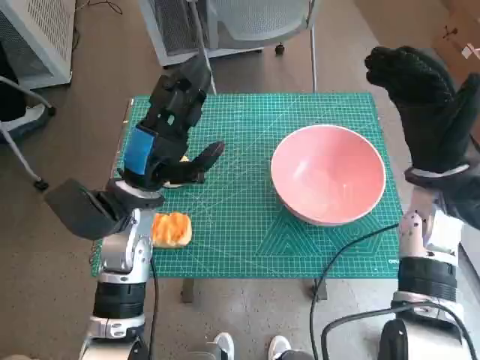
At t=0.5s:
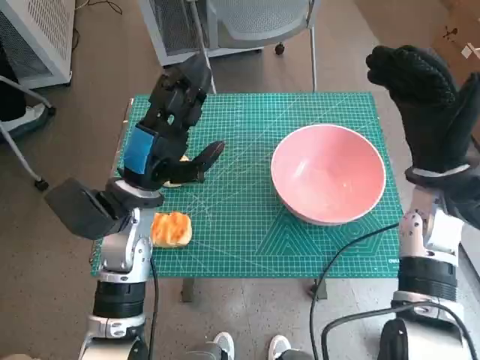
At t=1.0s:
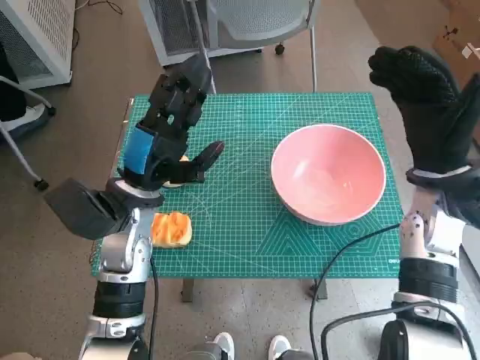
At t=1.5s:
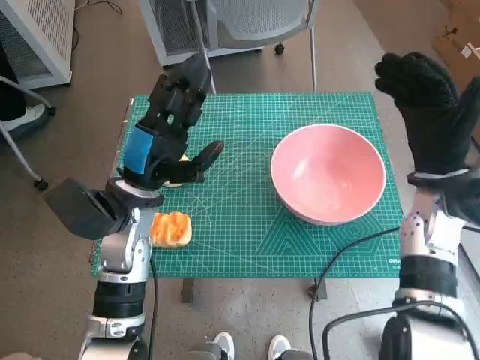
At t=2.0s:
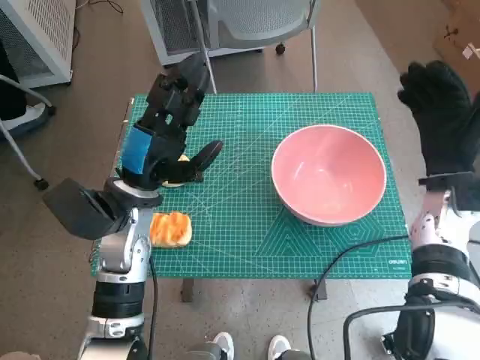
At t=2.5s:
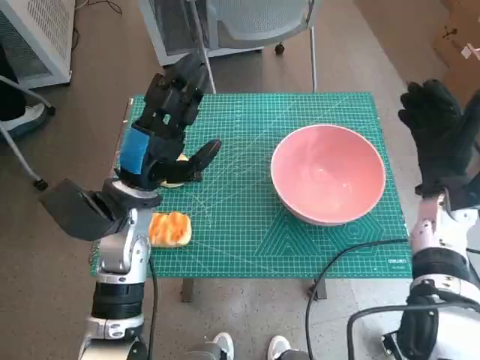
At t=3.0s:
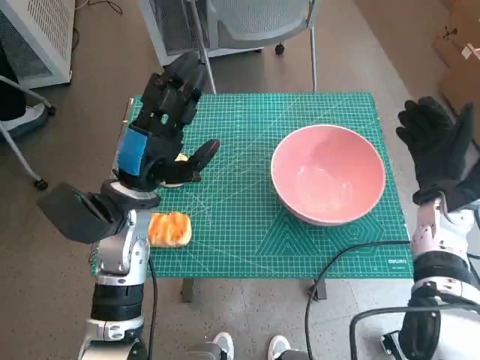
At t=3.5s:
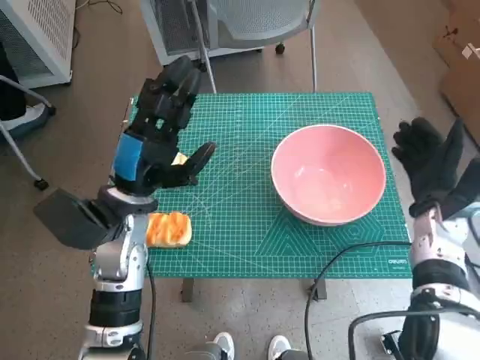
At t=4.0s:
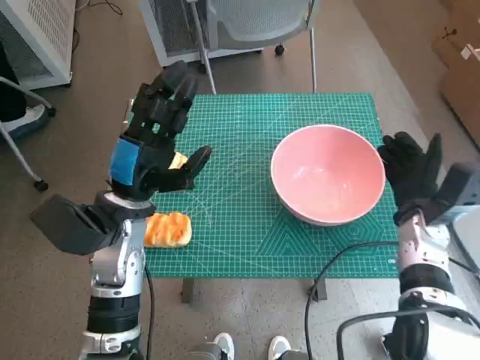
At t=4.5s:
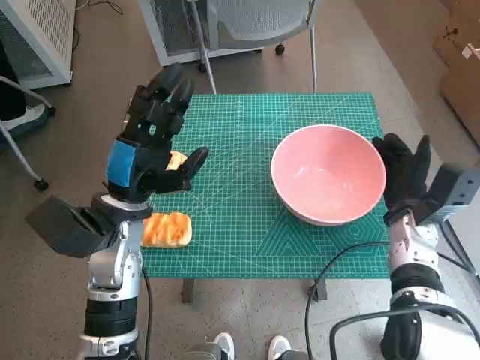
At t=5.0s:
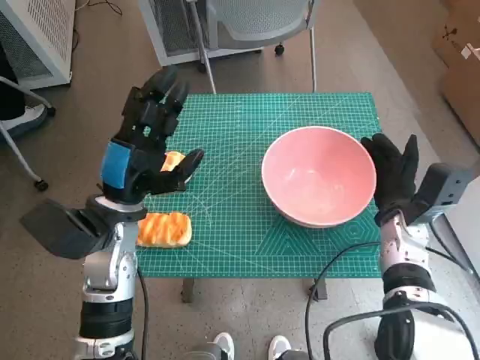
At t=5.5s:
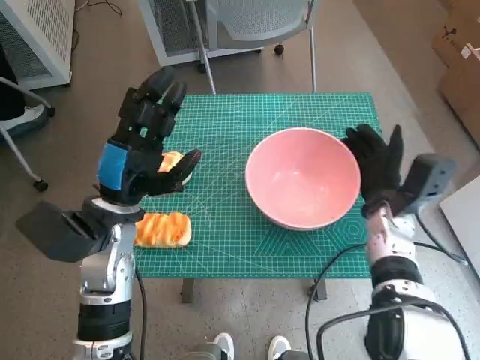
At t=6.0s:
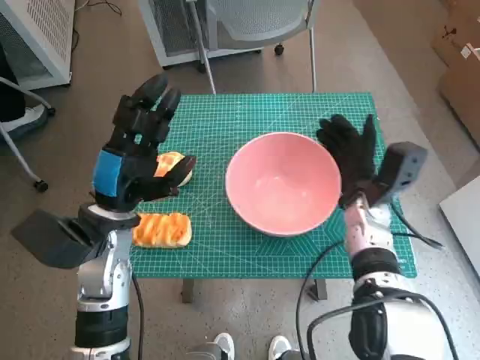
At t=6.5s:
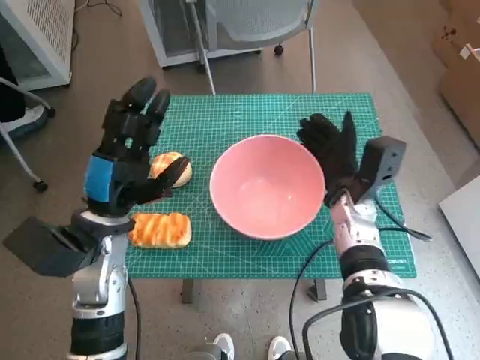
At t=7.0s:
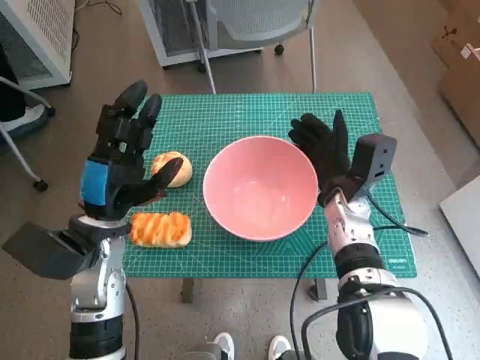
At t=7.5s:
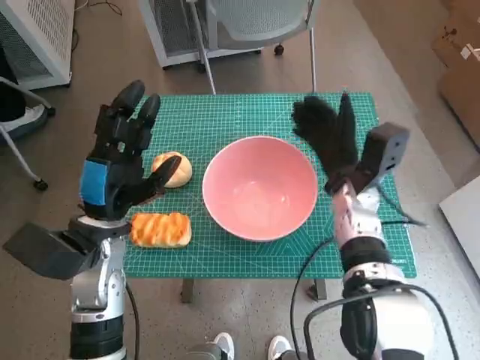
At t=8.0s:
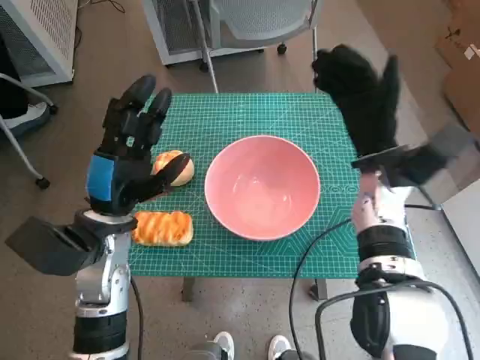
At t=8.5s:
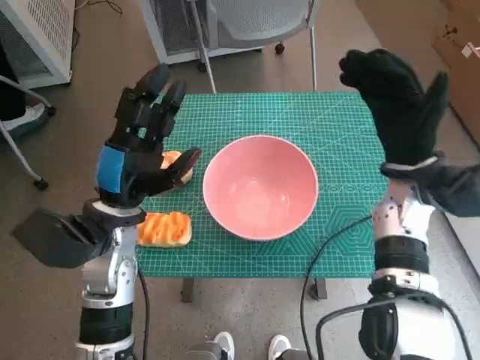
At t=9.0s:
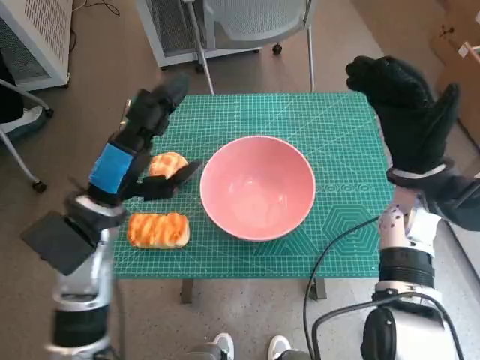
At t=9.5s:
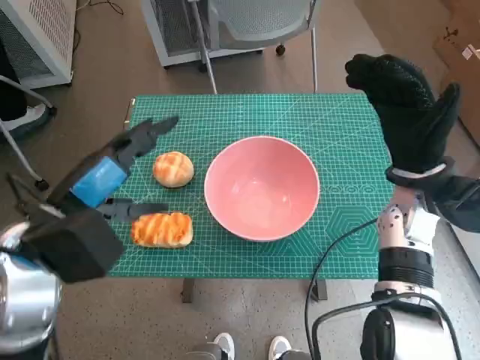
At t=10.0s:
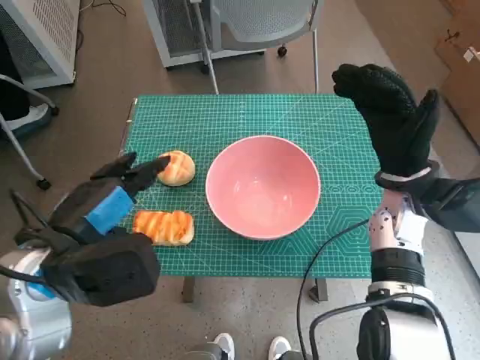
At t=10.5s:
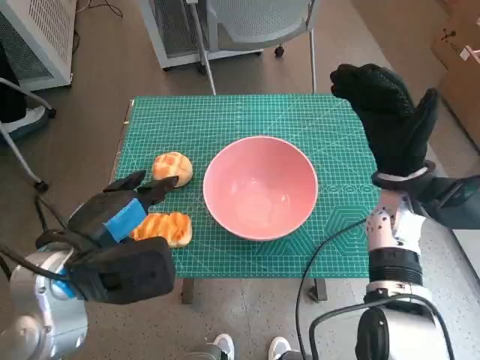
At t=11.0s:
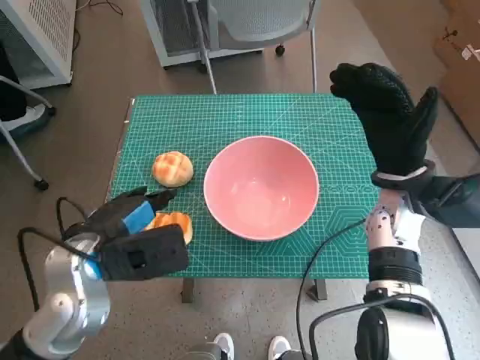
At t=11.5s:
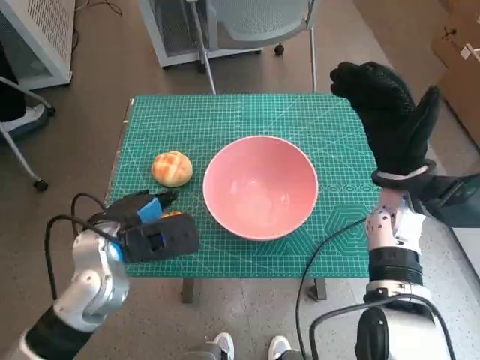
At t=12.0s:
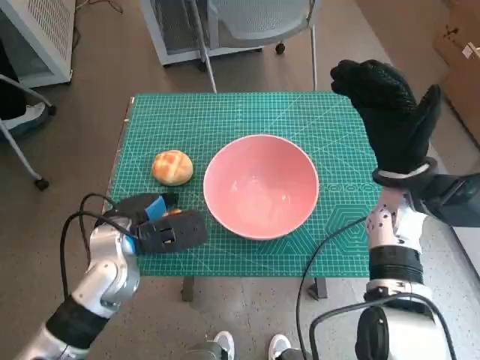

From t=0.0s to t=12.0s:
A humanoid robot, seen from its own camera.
Step, from t=0.0s to t=7.5s: Move the pink bowl to the center of table with right hand.
From t=2.0s to t=4.0s: The right hand is displaced downward by roughly 5 cm.
From t=4.0s to t=6.0s: The right hand is displaced to the left by some 10 cm.
From t=6.0s to t=8.0s: The right hand heads upward, covering about 5 cm.
From t=8.0s to t=10.0s: The left hand goes some 10 cm upward and backward.
From t=10.0s to t=12.0s: The left hand travels downward and forward by some 15 cm.

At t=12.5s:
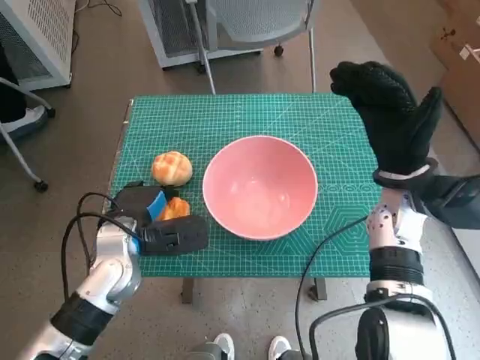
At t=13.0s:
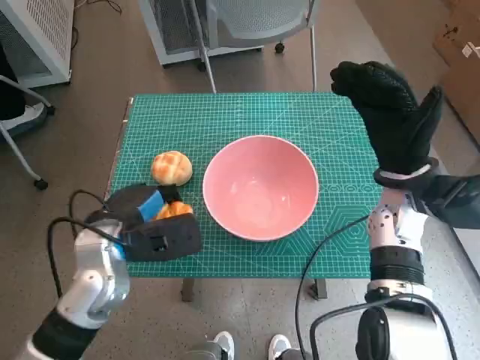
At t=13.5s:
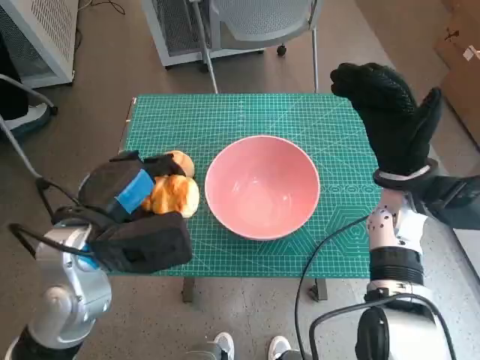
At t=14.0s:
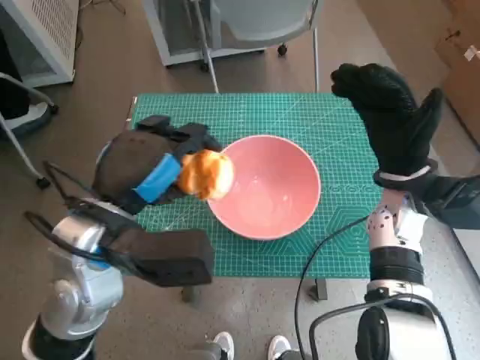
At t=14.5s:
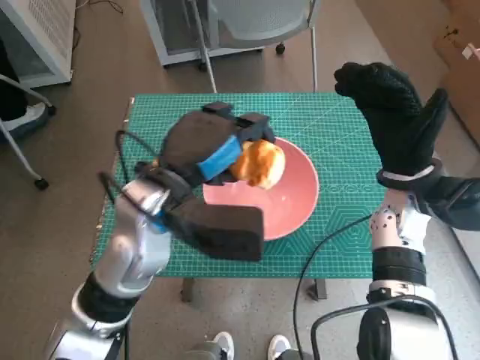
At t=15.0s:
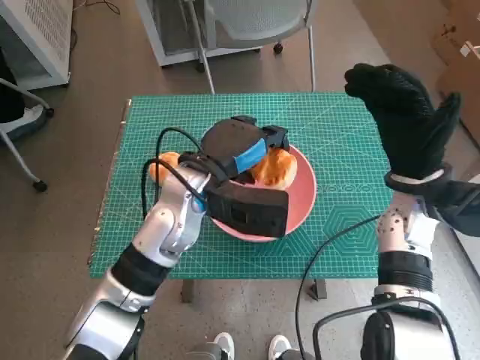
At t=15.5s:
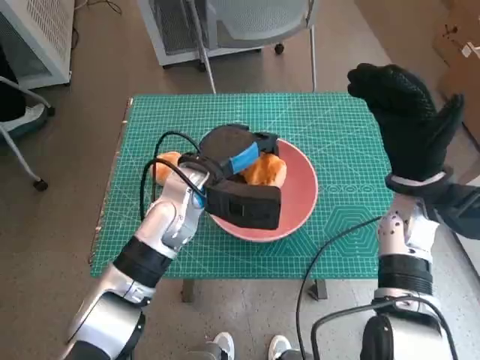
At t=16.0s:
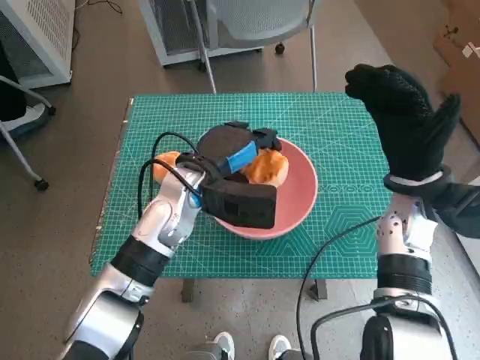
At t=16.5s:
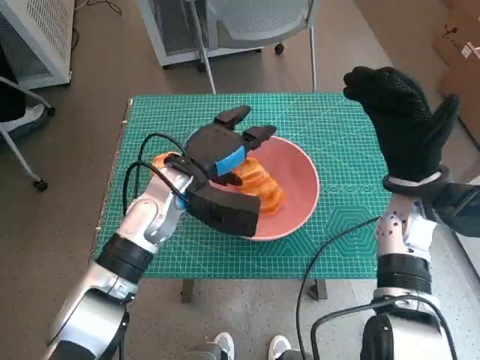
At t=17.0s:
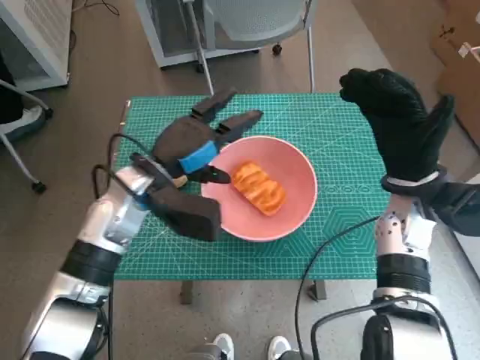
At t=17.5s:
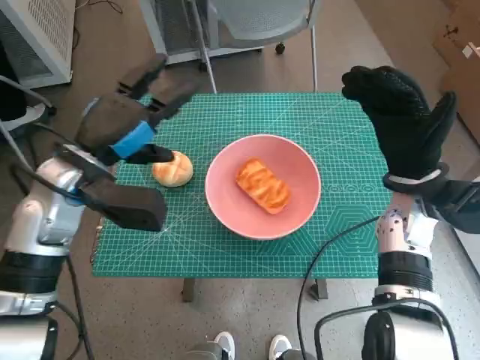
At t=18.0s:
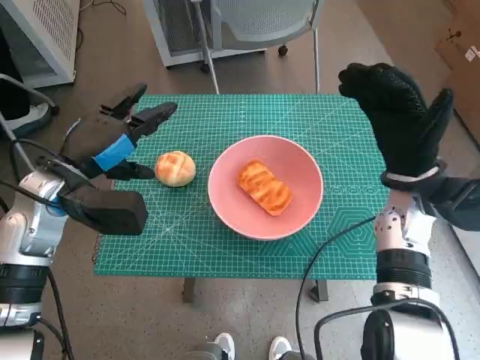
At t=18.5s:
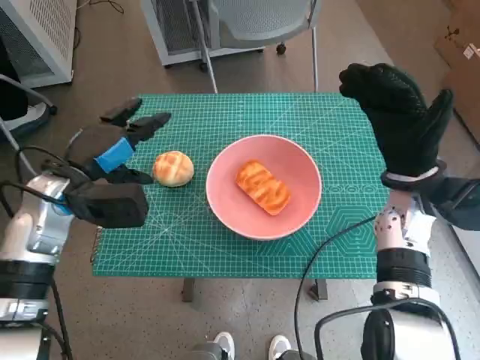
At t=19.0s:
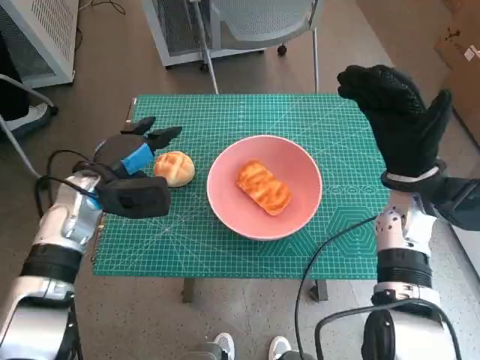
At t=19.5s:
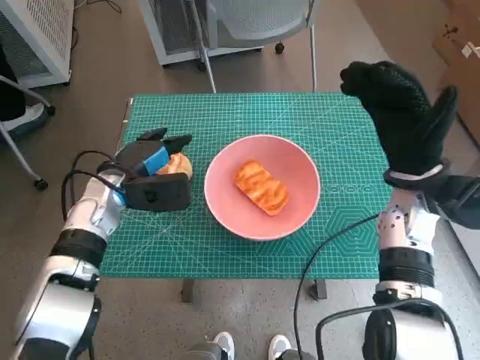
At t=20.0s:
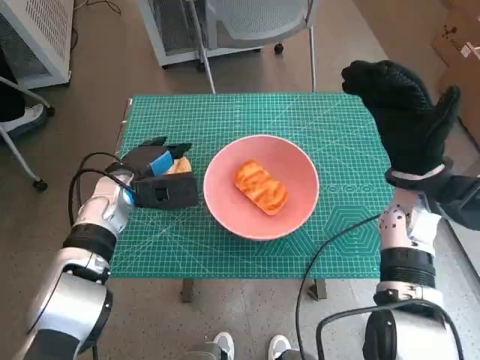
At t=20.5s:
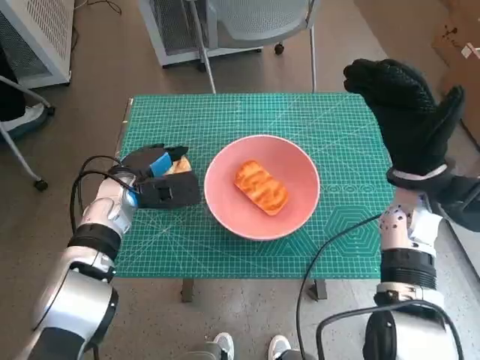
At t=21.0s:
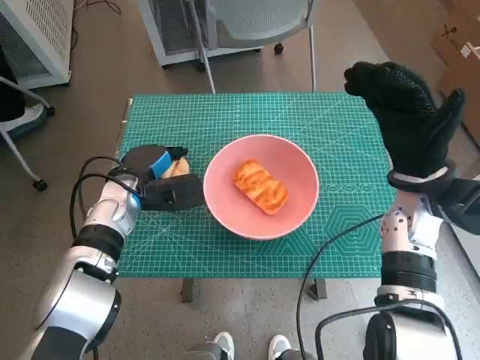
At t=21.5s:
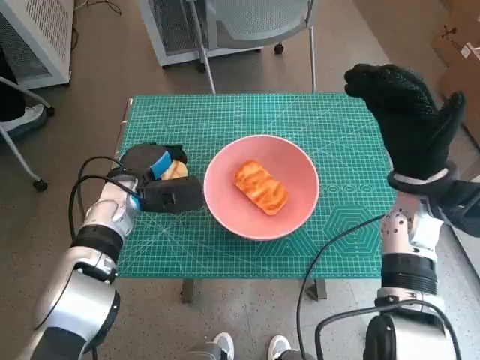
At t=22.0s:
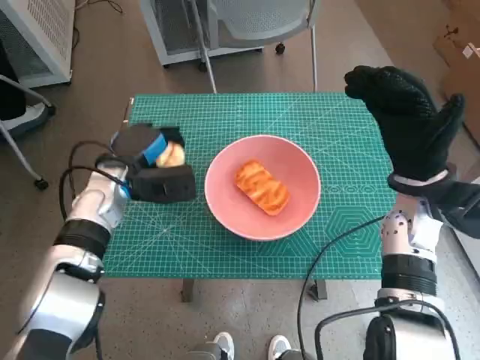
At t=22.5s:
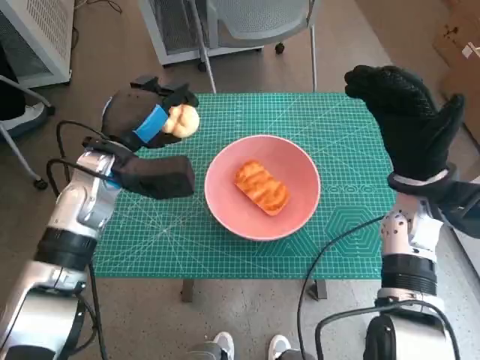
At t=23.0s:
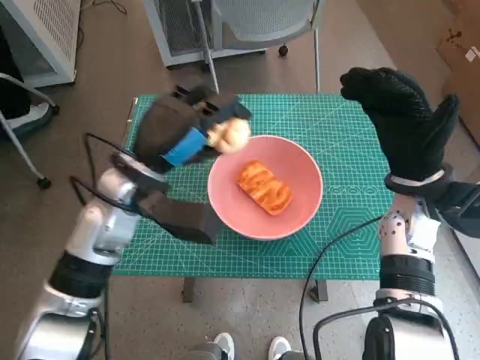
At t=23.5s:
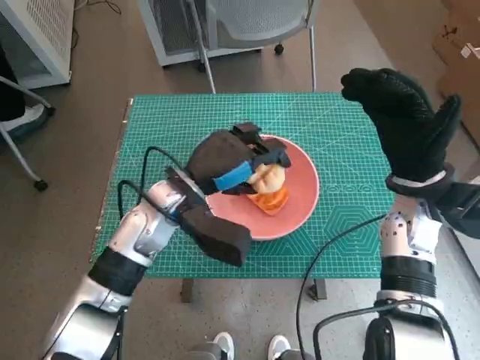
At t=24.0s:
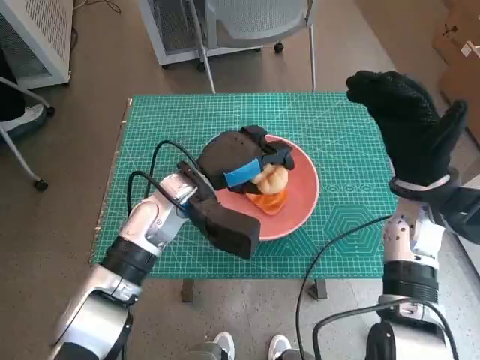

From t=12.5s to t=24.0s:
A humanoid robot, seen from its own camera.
Step, from t=13.0s to t=16.0s: Place the long bread in pink bowl with left hand.
Step, from t=16.5s to t=21.0s: Grasp the round bread with left hand.
From t=12.5s to t=14.5s: The left hand moves upward and to the right, some 15 cm.
From t=14.5s to t=16.5s: The left hand moves downward and forward, about 10 cm.
From t=16.5s to t=18.5s: The left hand travels to the left by about 15 cm.
From t=18.5s to t=20.0s: The left hand is displaced downward by some 5 cm.
From t=20.0s to t=22.0s: The hands stay close to where they were, moving slightly.
From t=22.0s to t=24.0s: The left hand heads to the right, covering roughly 10 cm.

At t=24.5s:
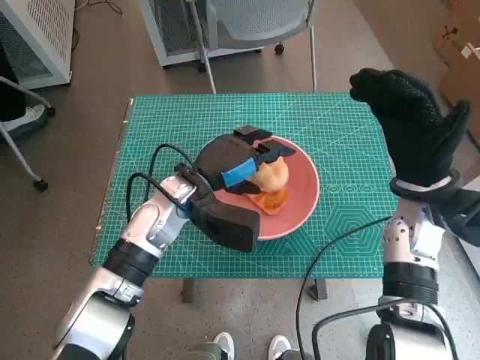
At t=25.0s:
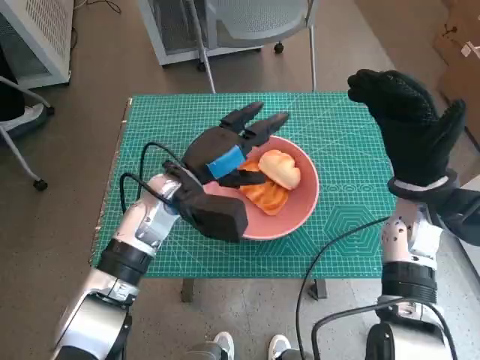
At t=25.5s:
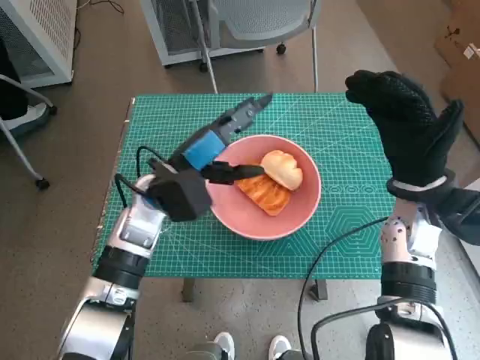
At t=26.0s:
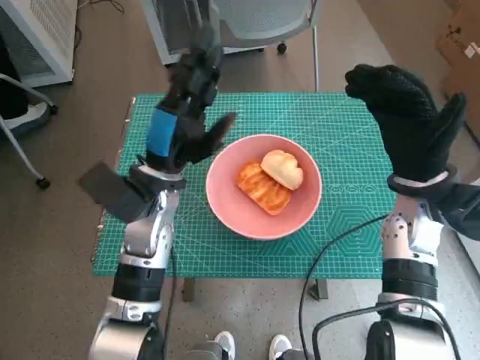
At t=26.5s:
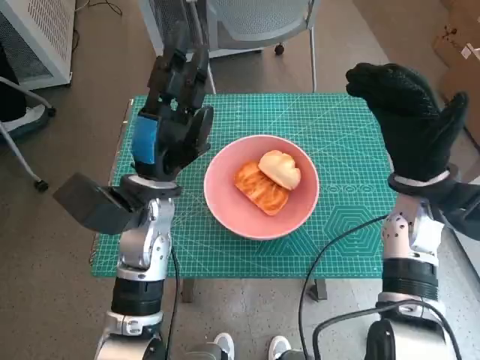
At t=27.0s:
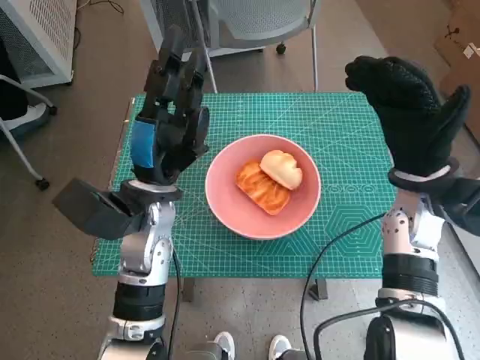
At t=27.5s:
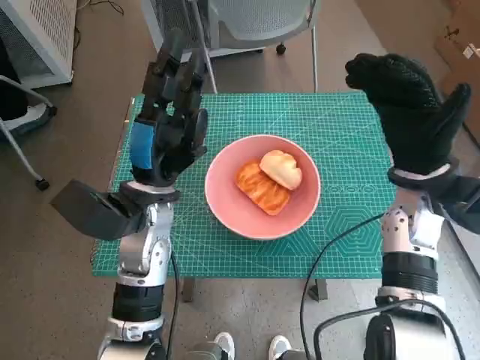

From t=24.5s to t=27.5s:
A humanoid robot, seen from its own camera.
From t=26.0s to t=27.5s: The hands move only a little.
